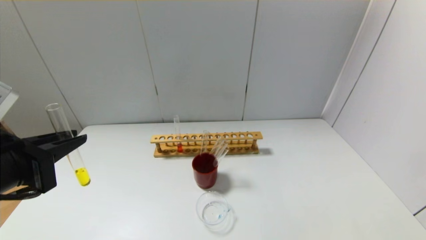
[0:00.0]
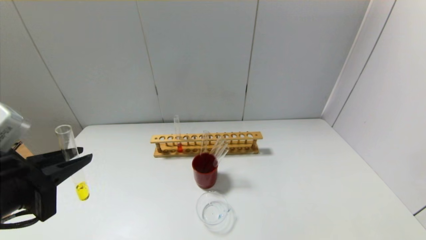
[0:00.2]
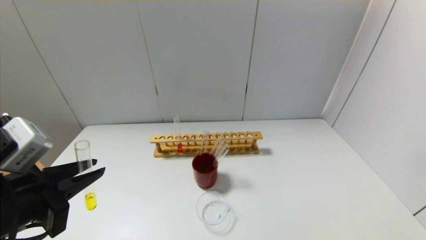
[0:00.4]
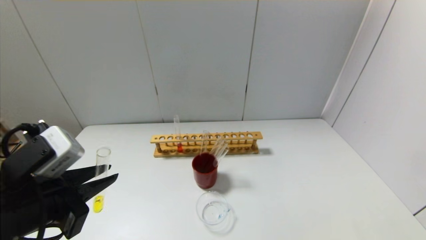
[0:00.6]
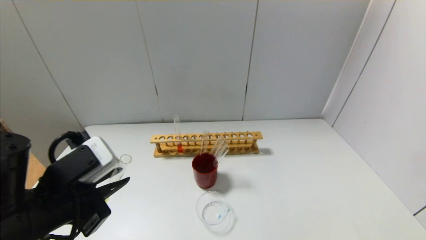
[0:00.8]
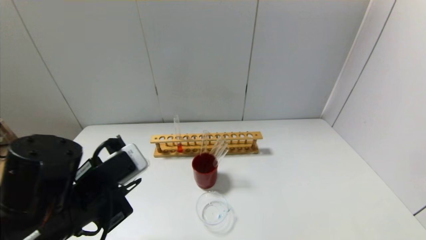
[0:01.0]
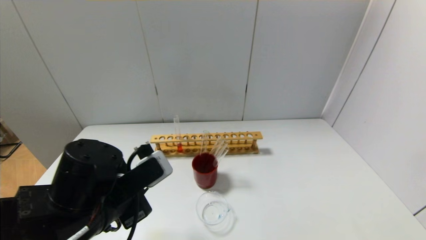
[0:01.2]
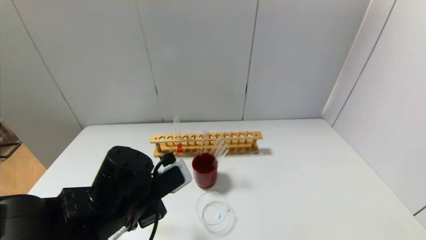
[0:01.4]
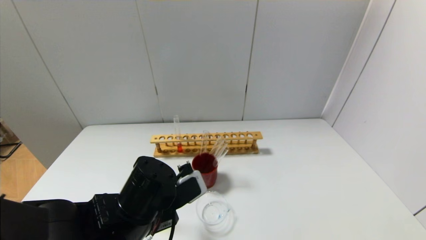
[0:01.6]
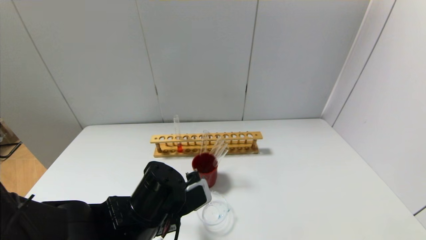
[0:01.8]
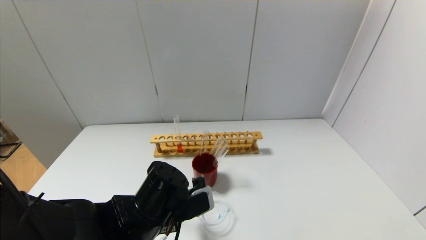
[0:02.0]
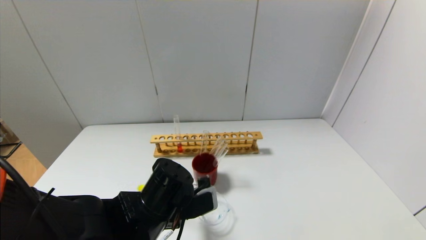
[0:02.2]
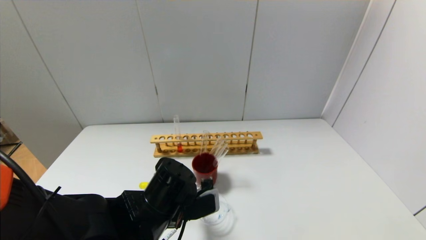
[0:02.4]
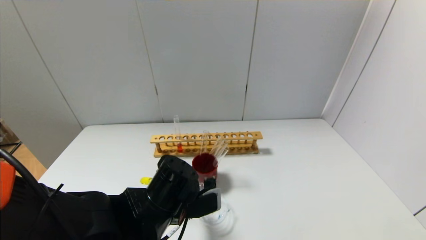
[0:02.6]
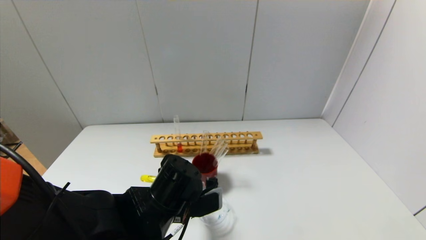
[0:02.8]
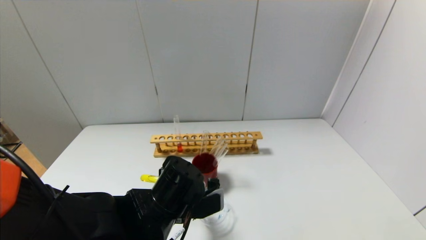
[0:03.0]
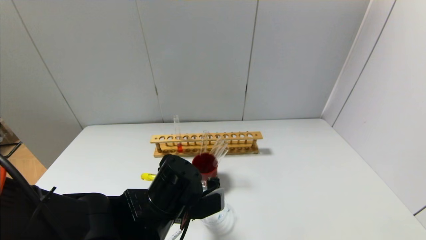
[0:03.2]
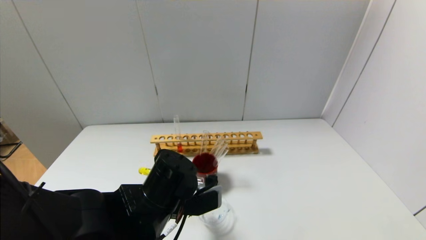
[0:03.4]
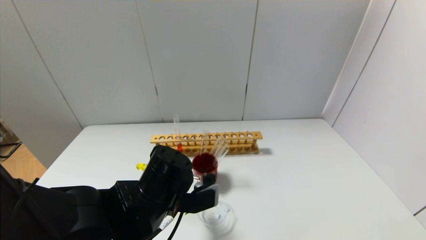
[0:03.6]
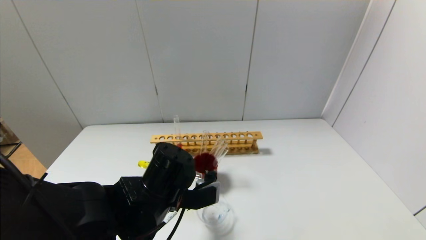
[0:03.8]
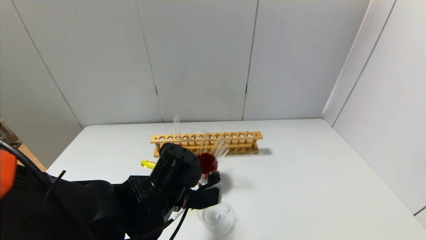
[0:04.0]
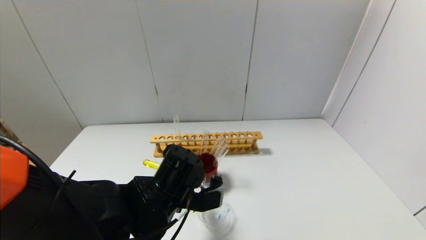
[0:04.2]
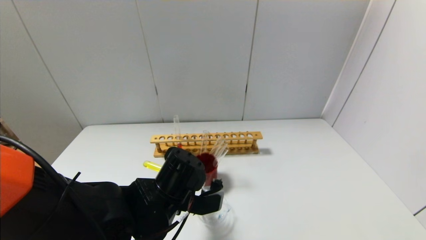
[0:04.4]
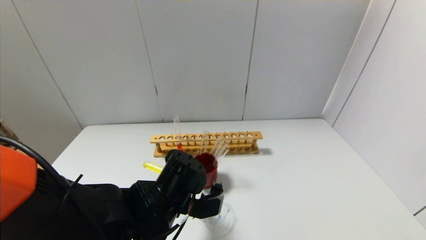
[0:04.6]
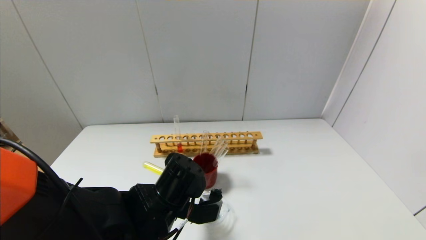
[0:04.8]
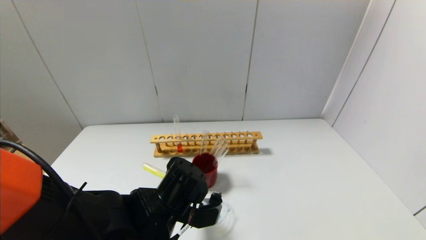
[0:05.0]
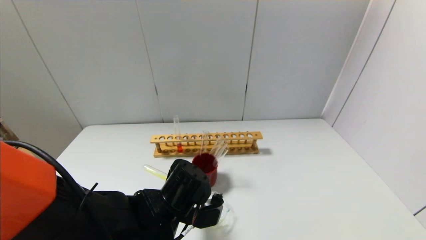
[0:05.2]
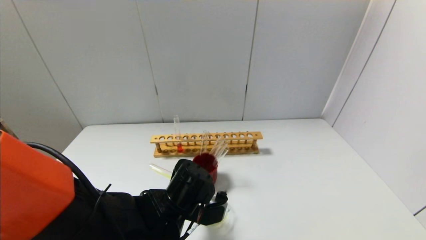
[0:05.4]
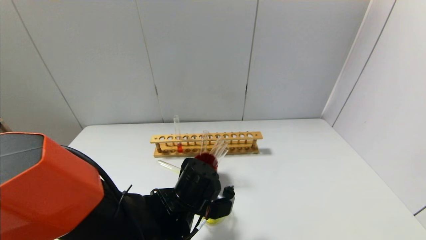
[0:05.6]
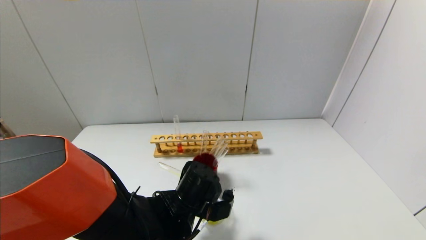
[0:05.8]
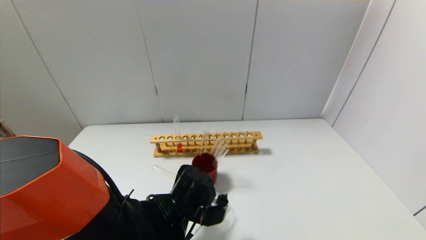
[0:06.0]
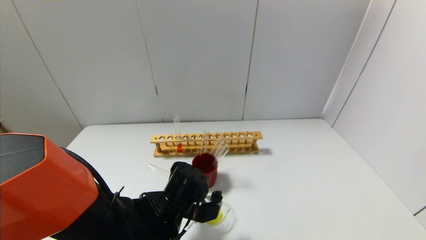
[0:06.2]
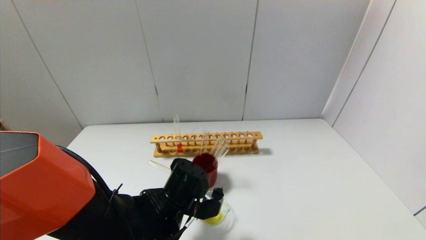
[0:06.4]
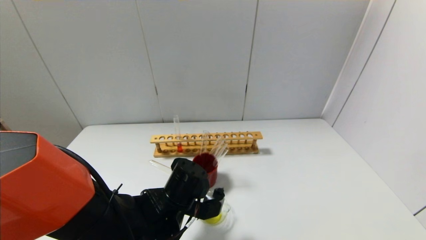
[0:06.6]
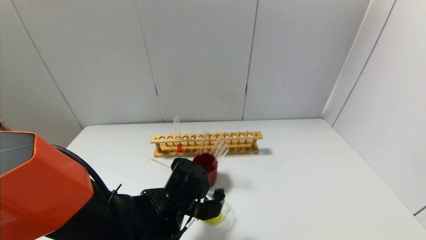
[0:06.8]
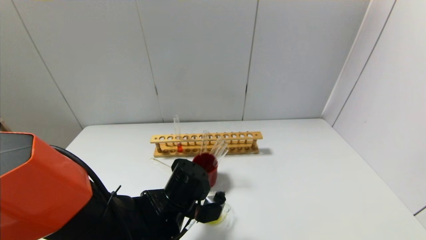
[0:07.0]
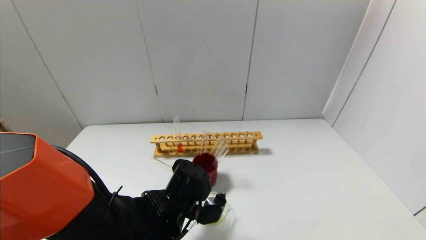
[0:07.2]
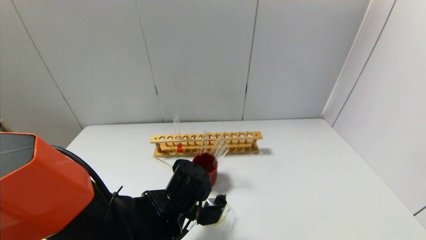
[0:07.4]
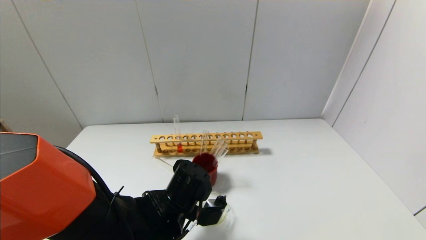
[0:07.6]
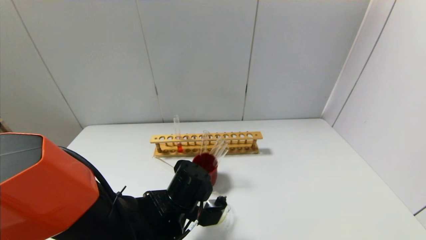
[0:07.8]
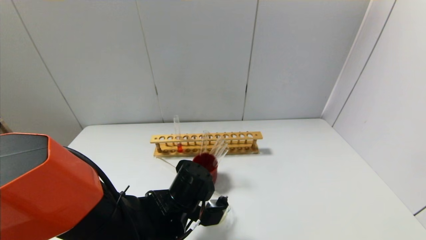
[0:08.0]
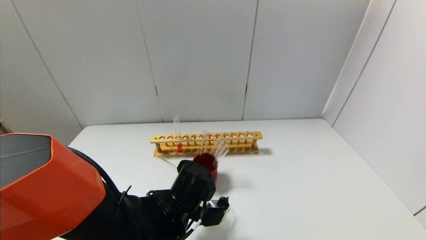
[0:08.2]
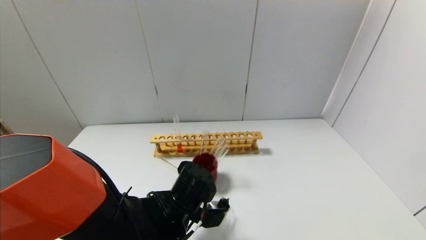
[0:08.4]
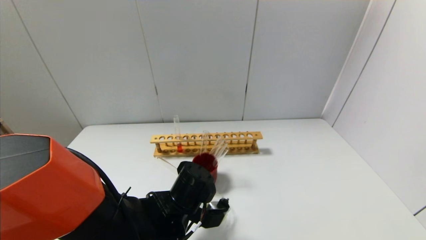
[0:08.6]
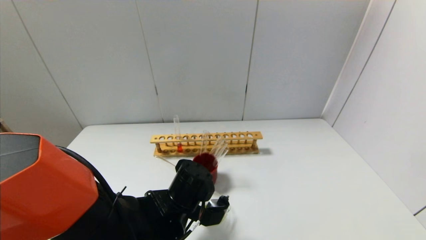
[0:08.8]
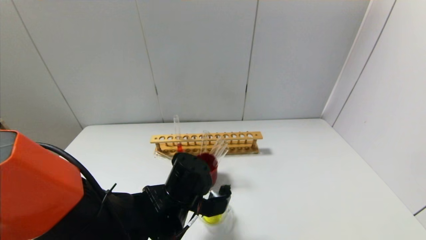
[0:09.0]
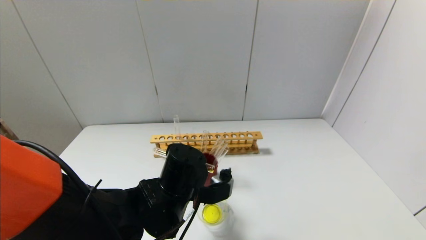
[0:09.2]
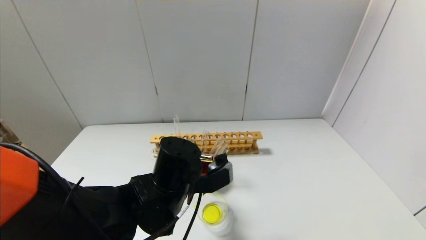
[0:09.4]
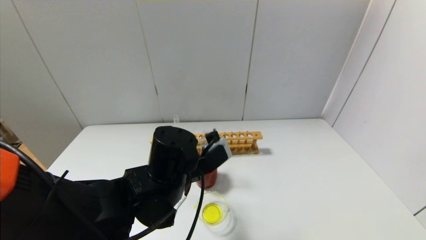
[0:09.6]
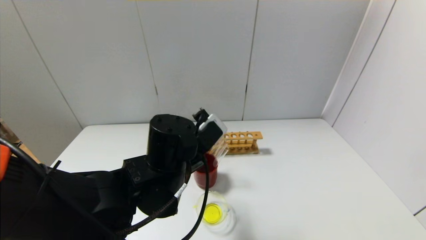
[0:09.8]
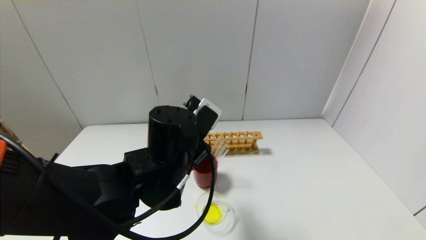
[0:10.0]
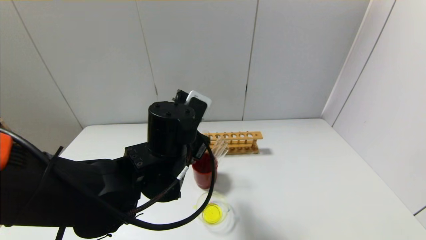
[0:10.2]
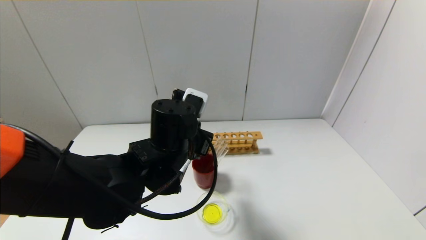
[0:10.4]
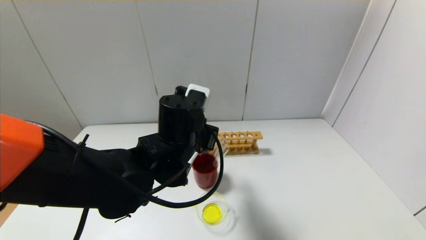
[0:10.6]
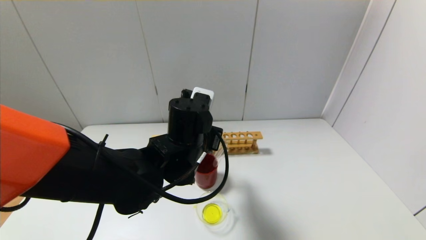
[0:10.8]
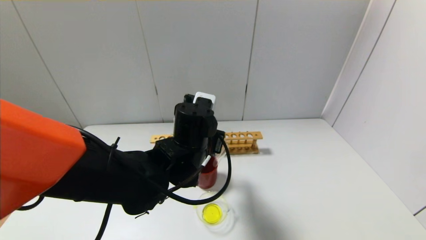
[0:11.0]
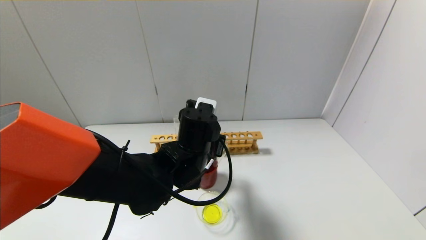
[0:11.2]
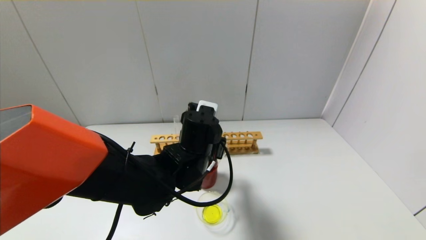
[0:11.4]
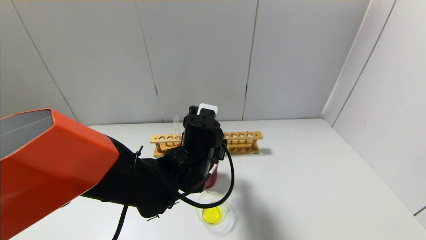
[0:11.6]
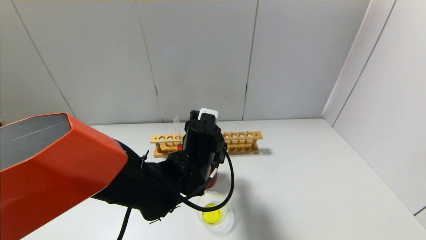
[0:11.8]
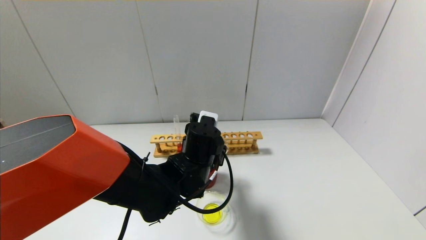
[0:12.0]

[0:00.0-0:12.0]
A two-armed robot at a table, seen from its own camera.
Step, 0.0 to 9.0 s: Pour the yellow reagent into the graduated cylinder with the left gripper.
0.0 to 1.6 s: The left gripper heads to the right and downward, covering approximately 20 cm.
3.0 to 4.4 s: The grippers make only small movements.
4.4 to 6.0 s: The left gripper moves about 5 cm.
6.0 to 9.0 s: The grippers stay close to where they were, moving slightly.
9.0 to 10.4 s: The left gripper shifts roughly 10 cm upward.
10.4 to 12.0 s: The left gripper heads downward, covering about 5 cm.

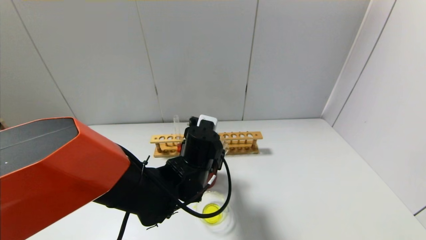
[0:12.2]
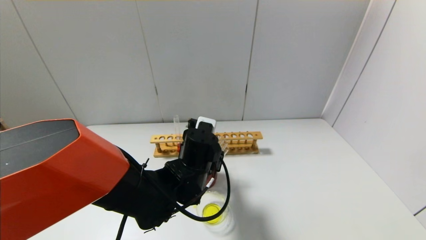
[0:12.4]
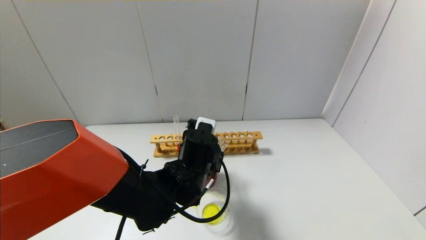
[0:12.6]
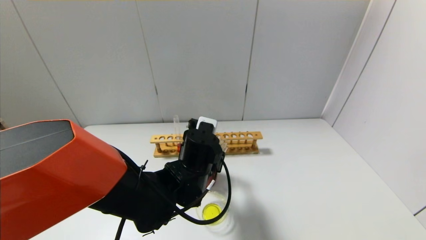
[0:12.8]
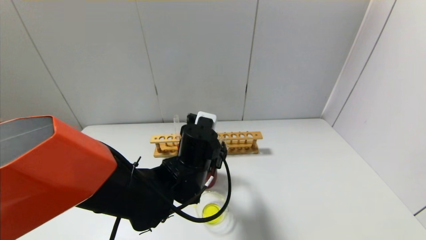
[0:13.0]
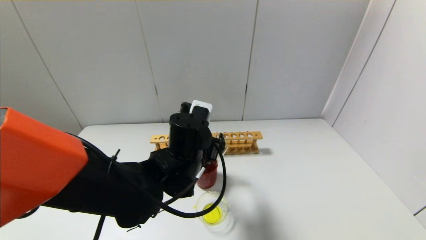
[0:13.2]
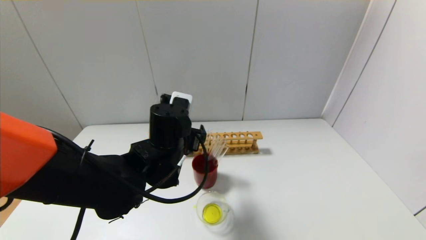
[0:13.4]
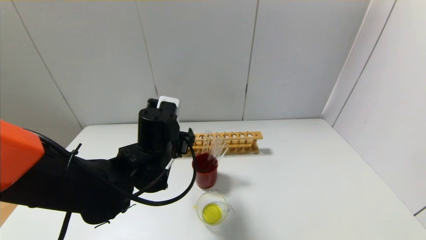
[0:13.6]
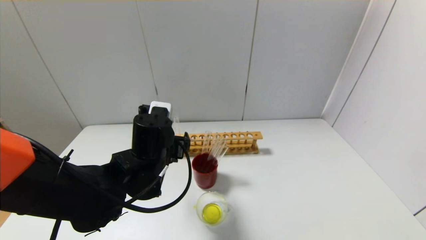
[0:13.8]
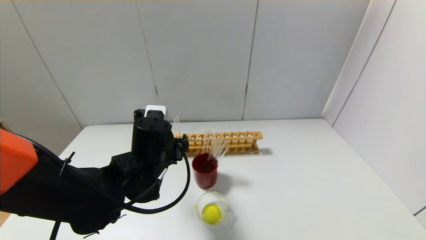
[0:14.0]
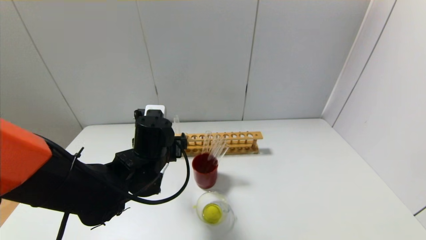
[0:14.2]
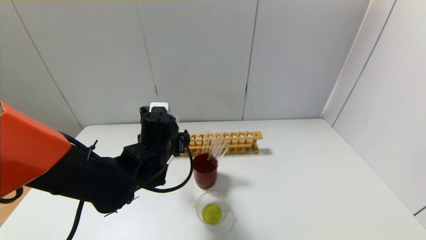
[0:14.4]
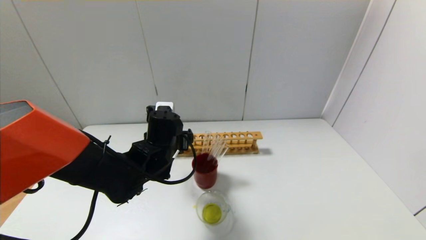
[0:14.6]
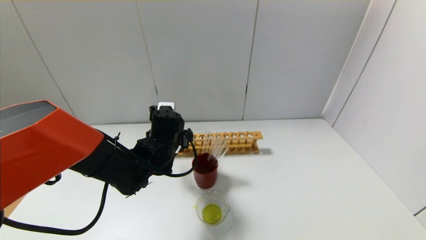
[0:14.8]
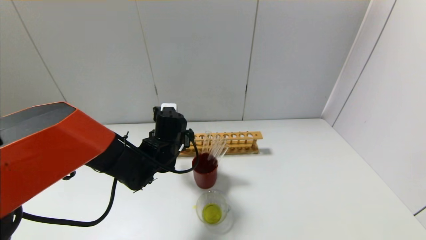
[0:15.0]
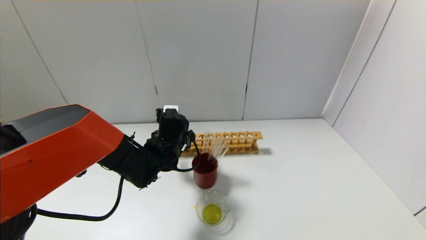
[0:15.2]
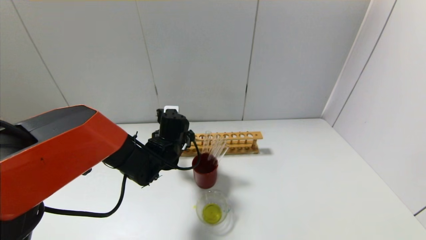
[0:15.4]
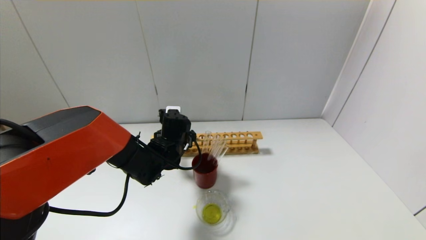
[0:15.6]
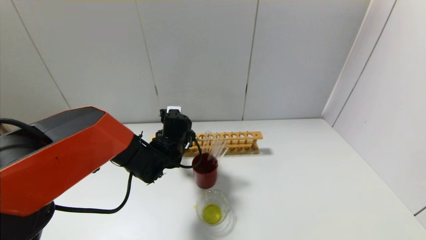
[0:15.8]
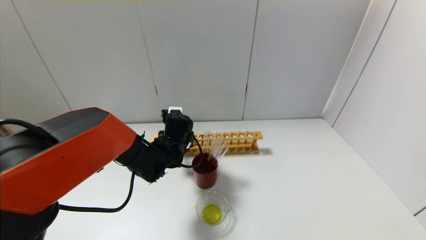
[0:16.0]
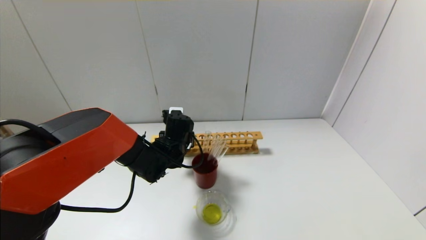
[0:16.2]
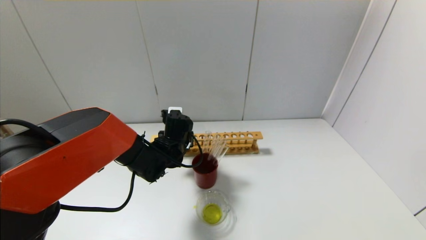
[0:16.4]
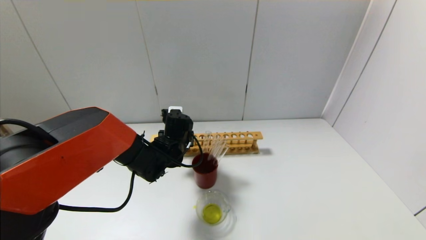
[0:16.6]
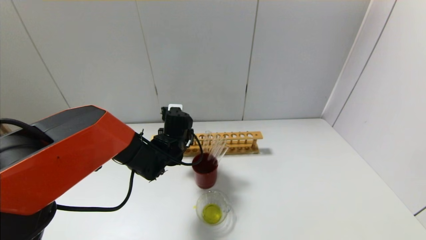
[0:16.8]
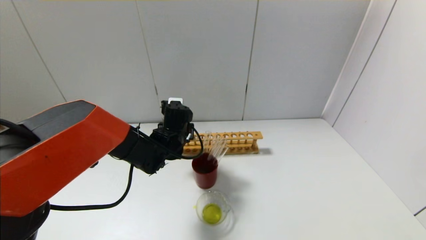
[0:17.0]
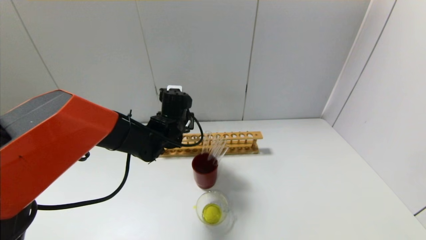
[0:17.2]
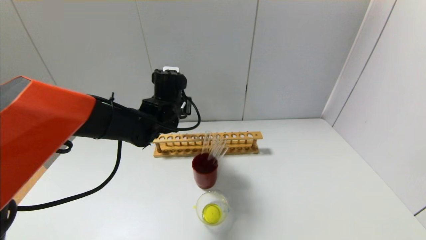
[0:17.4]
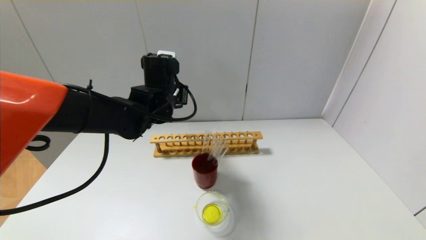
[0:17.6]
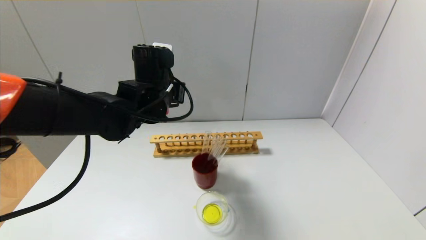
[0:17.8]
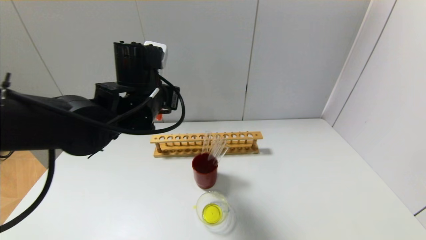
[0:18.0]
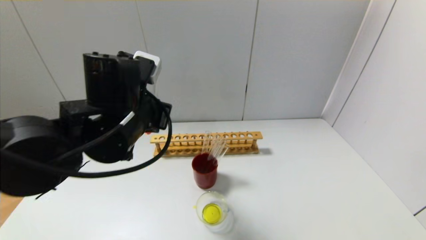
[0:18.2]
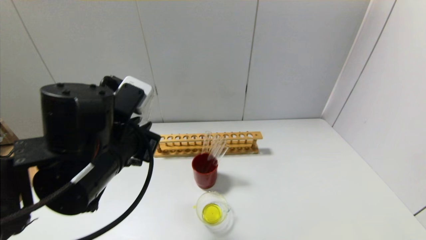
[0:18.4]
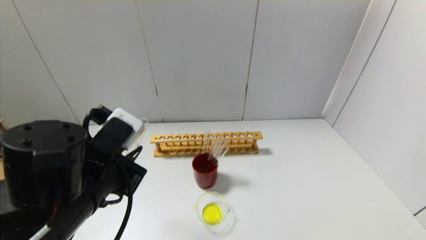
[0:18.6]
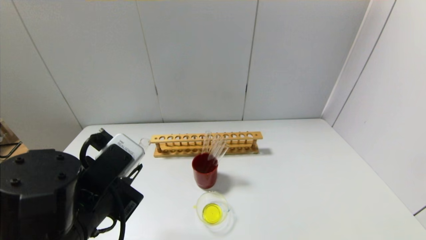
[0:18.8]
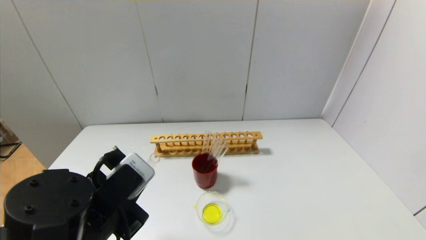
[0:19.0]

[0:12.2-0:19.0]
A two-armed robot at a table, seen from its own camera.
Step, 12.8 to 16.4 s: Grasp the red reagent with the left gripper.
12.2 to 13.6 s: The left gripper moves to the left, some 5 cm, and opens.
13.6 to 15.0 s: The left gripper moves forward and downward, about 10 cm.
15.0 to 16.2 s: The left gripper closes.
16.2 to 17.6 s: The left gripper goes about 15 cm upward.
17.6 to 19.0 s: The left gripper goes some 25 cm backward.
